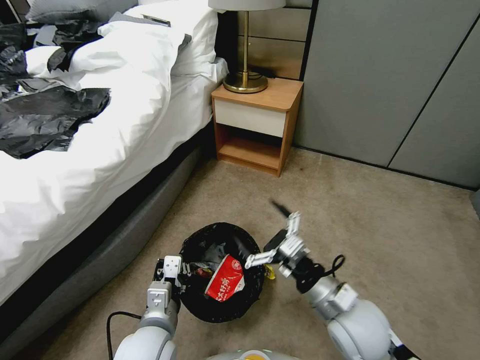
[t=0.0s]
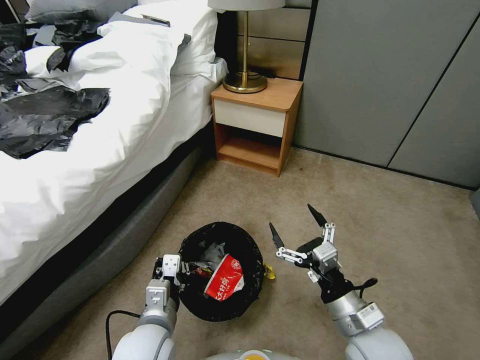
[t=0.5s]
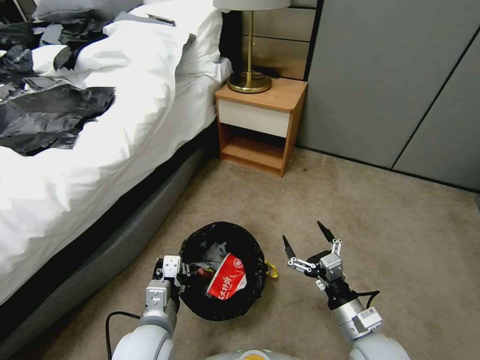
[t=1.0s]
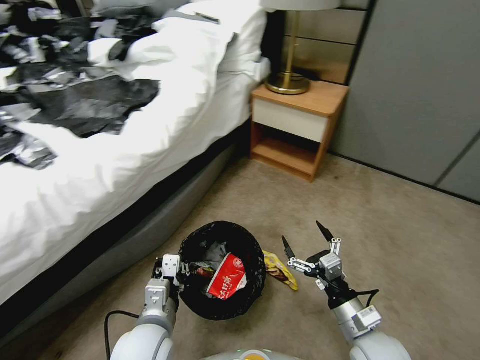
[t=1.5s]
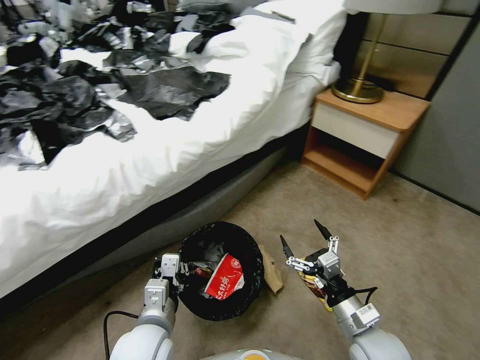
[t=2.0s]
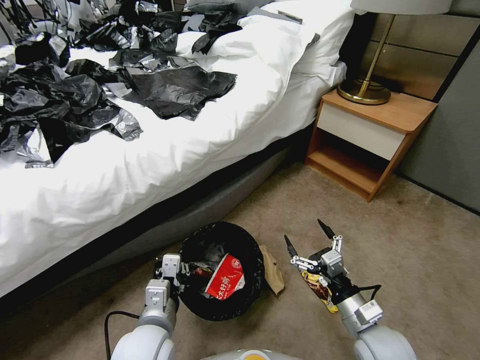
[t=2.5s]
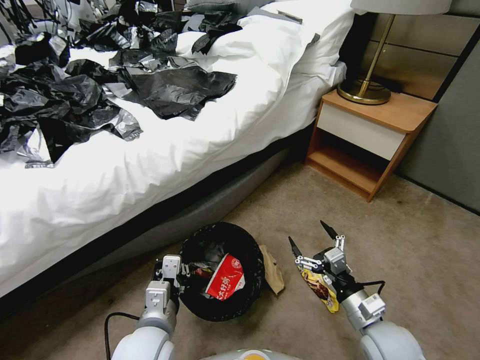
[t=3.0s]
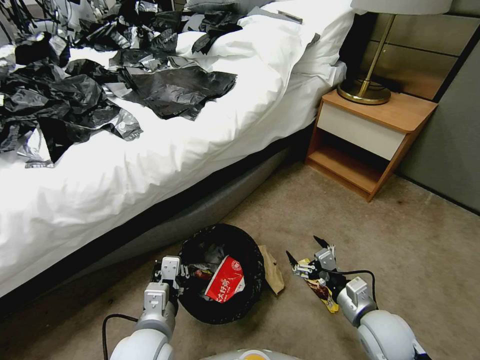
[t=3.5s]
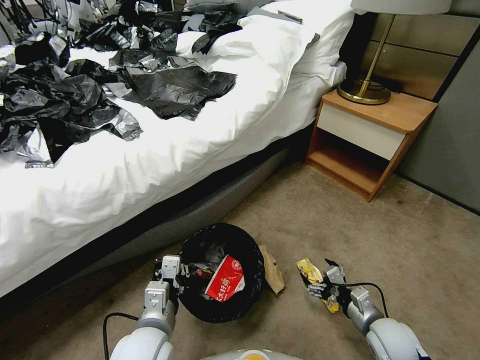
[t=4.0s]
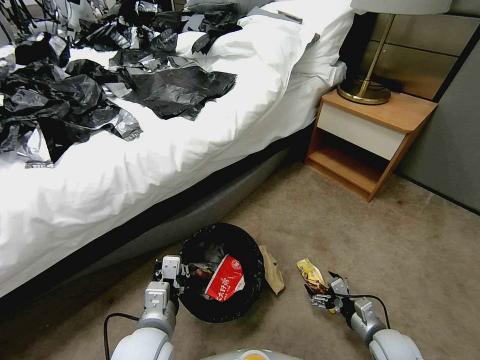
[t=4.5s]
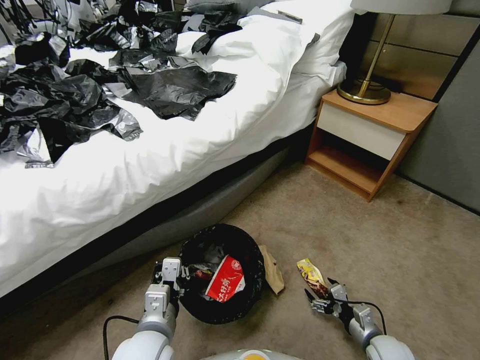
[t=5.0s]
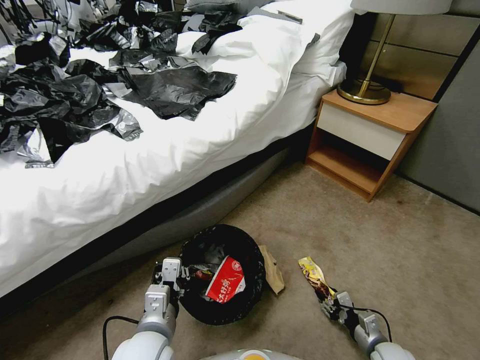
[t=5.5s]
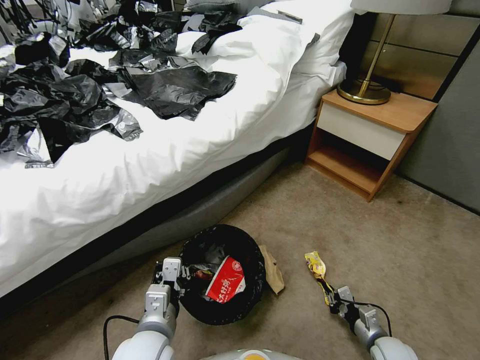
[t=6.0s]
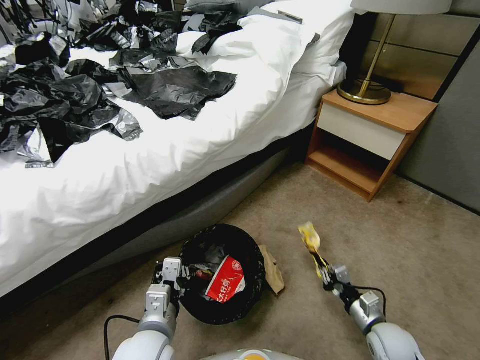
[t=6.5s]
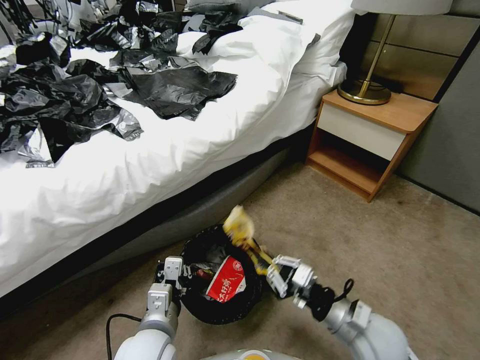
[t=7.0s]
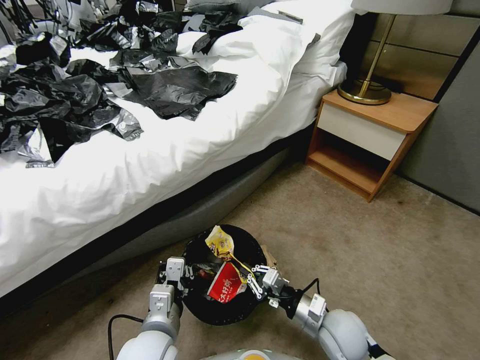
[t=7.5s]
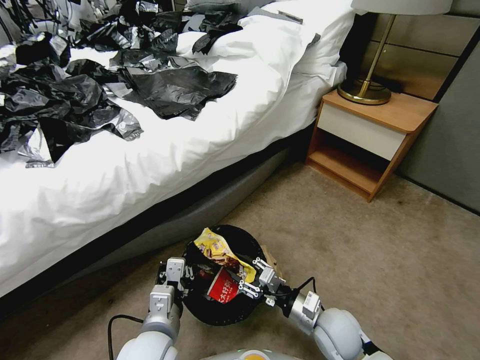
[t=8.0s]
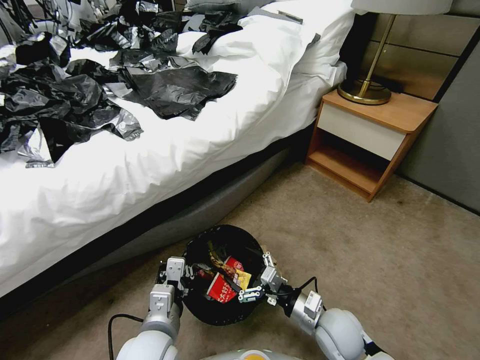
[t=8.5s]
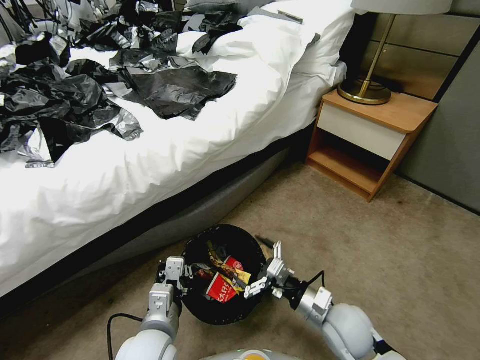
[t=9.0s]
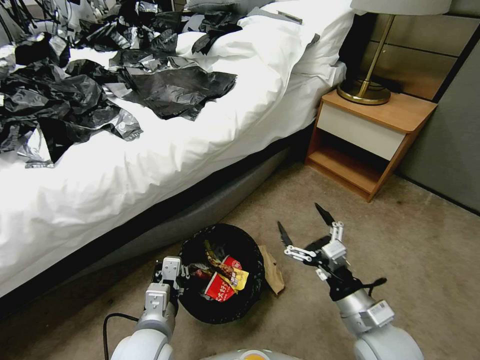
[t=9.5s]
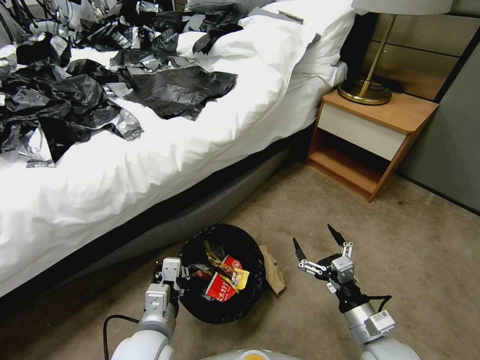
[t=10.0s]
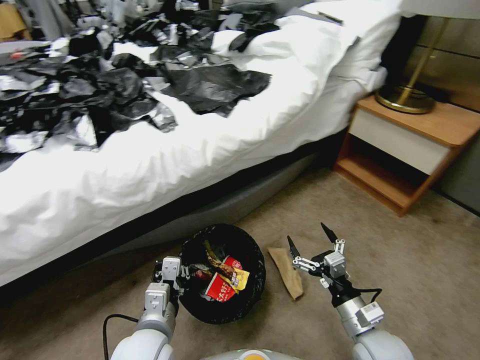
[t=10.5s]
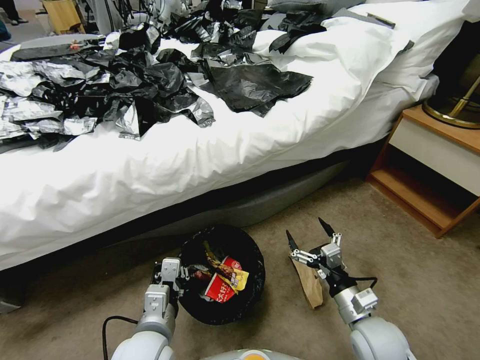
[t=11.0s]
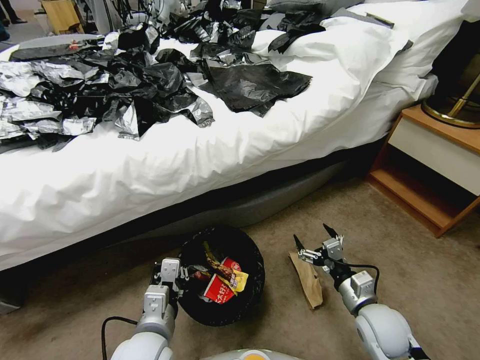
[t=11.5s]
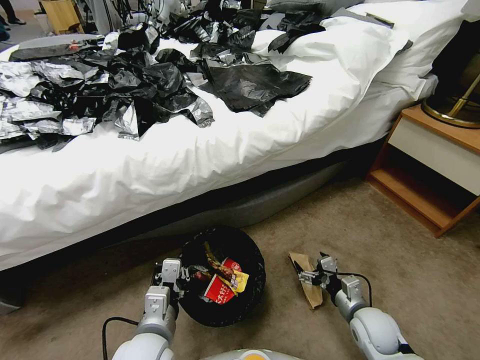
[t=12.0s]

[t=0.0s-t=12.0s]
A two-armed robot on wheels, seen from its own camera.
Task of the whole recording: Pick up the trash bin, then pick up the garbage from the floor and place it into the trash bin.
t=0.0s to t=2.0s: The right gripper is displaced downward and to the right by roughly 10 cm.
t=2.0s to t=4.0s: The right gripper travels to the right and downward by some 10 cm.
t=4.0s to t=6.0s: The right gripper shifts some 10 cm downward, and closes its fingers.
t=6.0s to t=8.0s: The right gripper goes about 20 cm to the left and upward, and opens.
t=8.0s to t=10.0s: The right gripper goes about 10 cm to the right and backward, and opens up.
t=10.0s to t=12.0s: The right gripper shifts some 10 cm downward and forward.

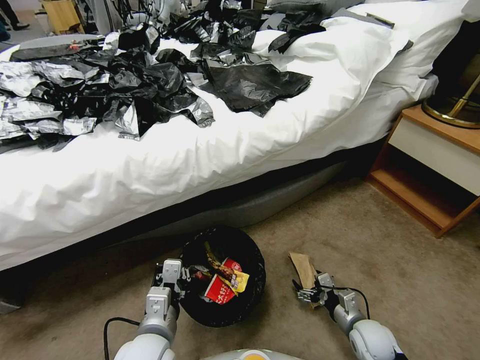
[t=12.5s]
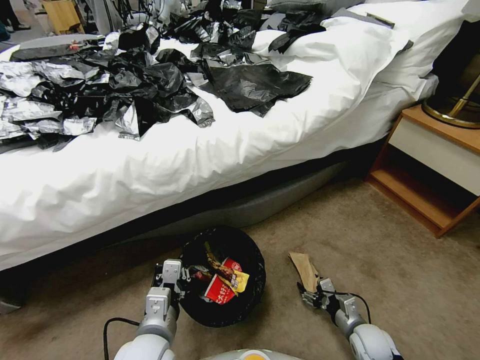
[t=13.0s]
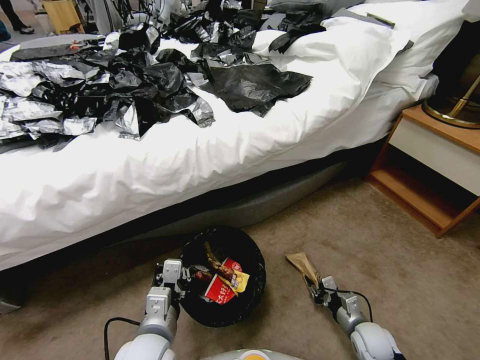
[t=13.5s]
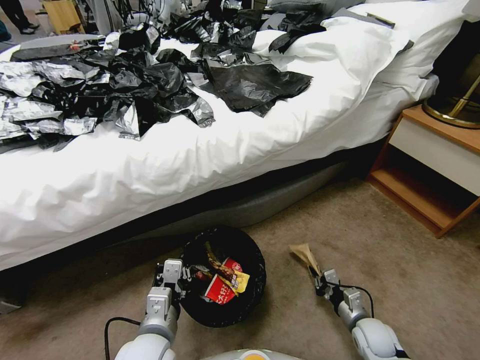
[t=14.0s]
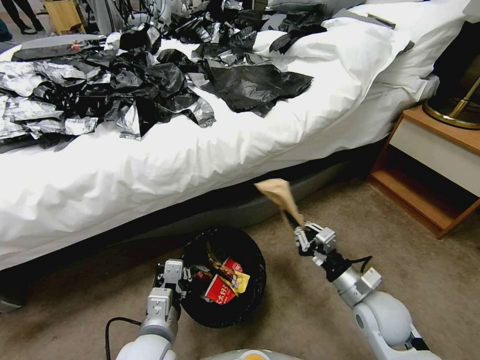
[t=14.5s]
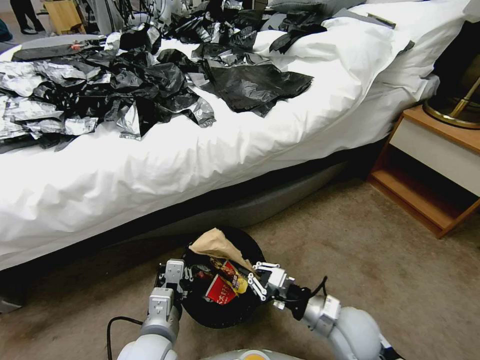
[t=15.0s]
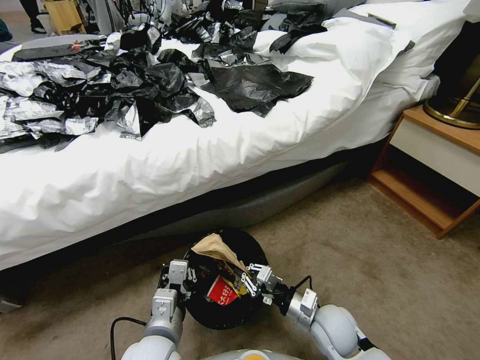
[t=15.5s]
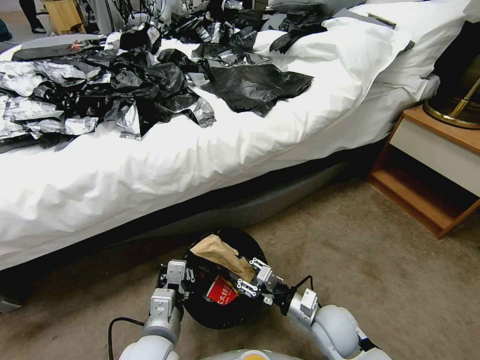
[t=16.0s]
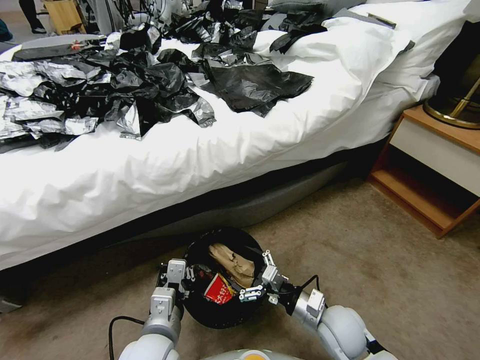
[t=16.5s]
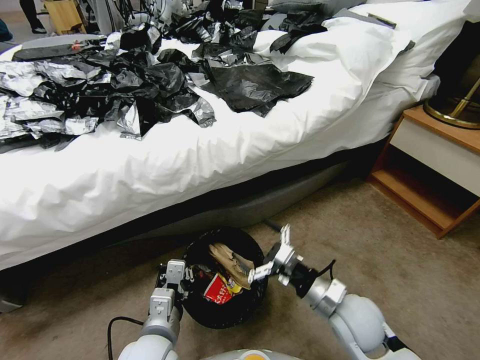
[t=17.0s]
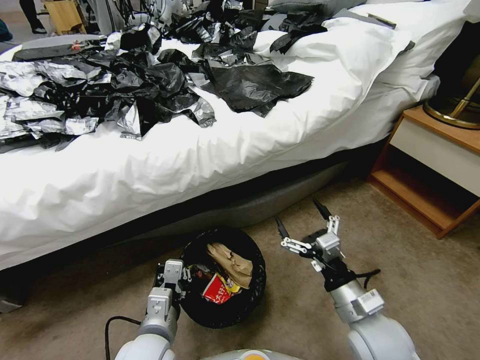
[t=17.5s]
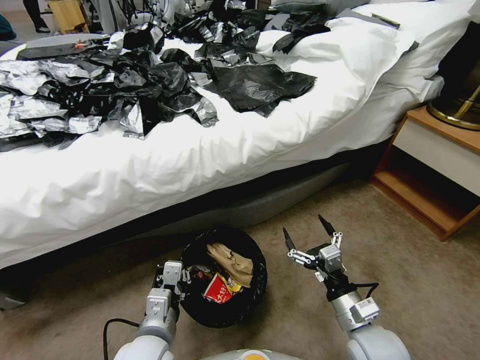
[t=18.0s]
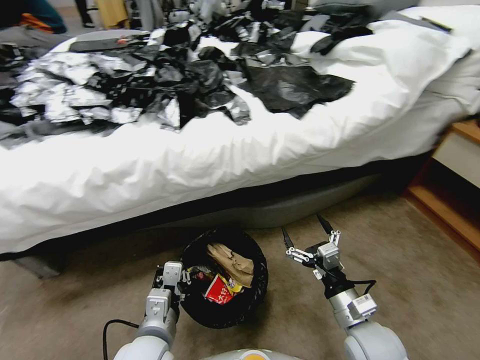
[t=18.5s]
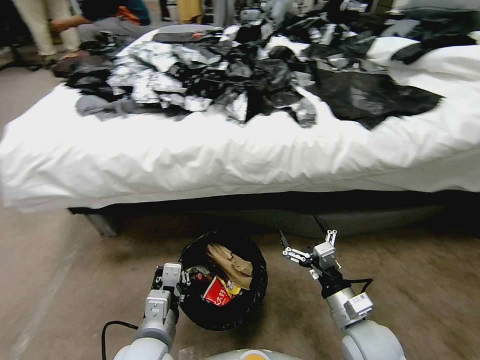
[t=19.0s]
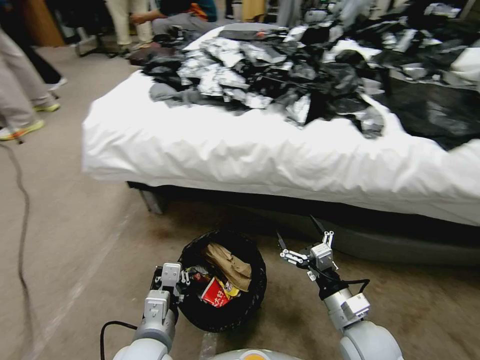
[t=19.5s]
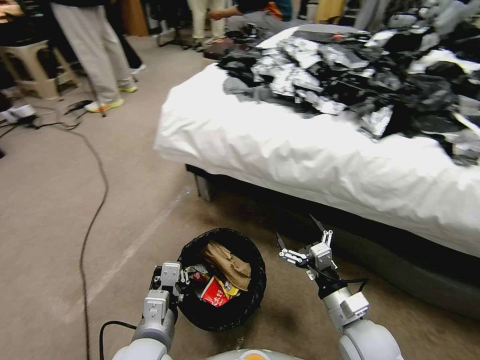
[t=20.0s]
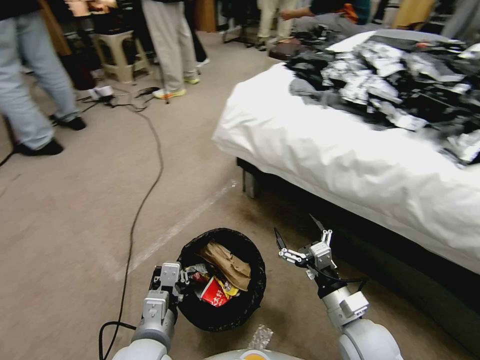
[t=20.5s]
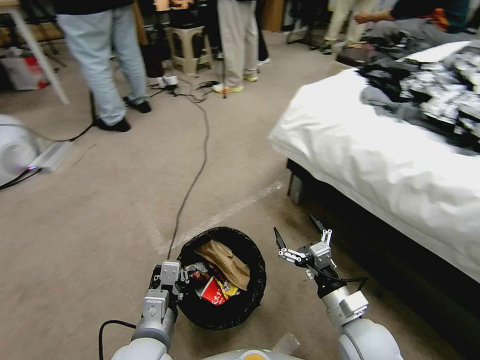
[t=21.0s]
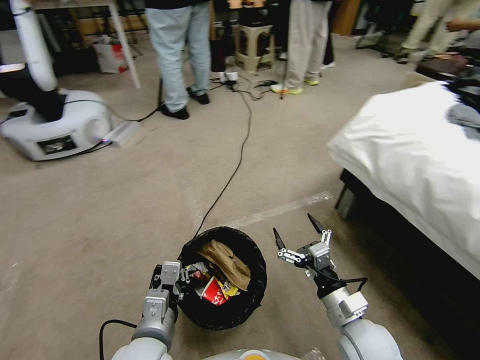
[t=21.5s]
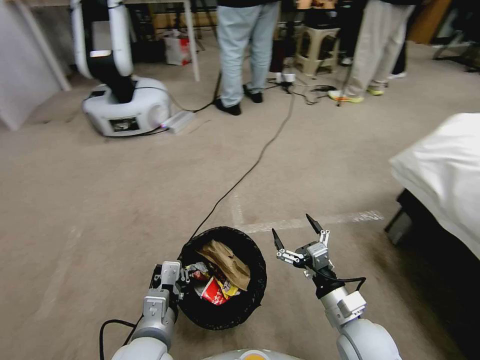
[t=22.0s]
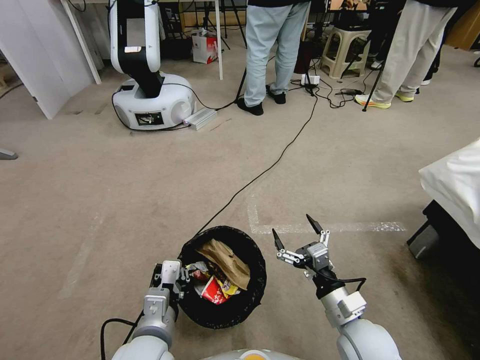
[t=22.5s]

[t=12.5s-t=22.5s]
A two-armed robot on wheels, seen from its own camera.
Task of the whole recording: Pick up the trash bin, then pick up the garbage from the floor and place it into the trash bin.
t=12.5s to t=14.5s: The right gripper heads upward, covering roughly 15 cm, and closes.
t=14.5s to t=16.5s: The right gripper is displaced to the left and downward by about 10 cm, and opens its fingers.
t=16.5s to t=18.5s: The right gripper moves upward, roughly 5 cm.

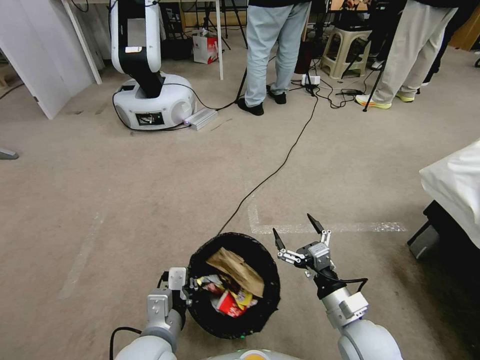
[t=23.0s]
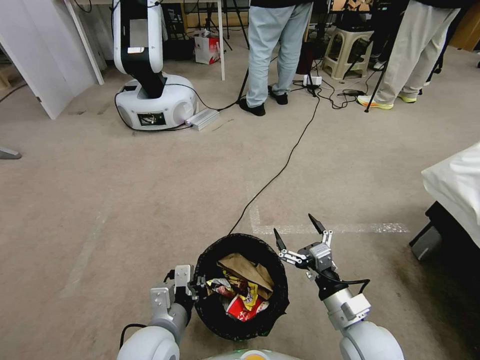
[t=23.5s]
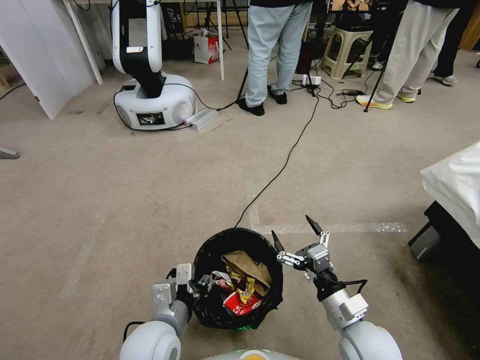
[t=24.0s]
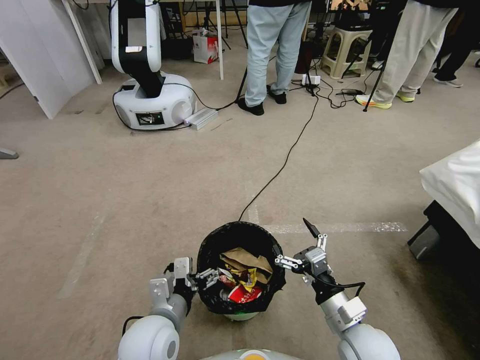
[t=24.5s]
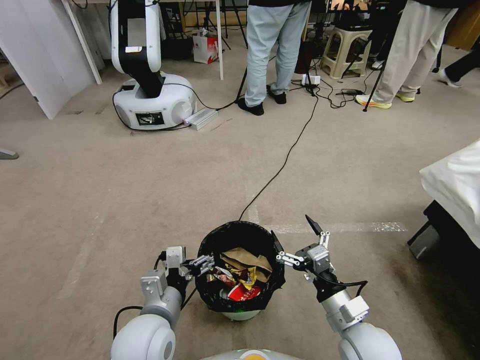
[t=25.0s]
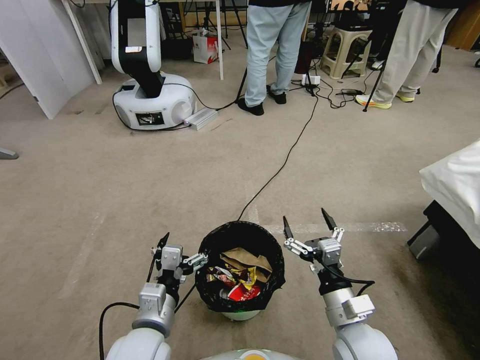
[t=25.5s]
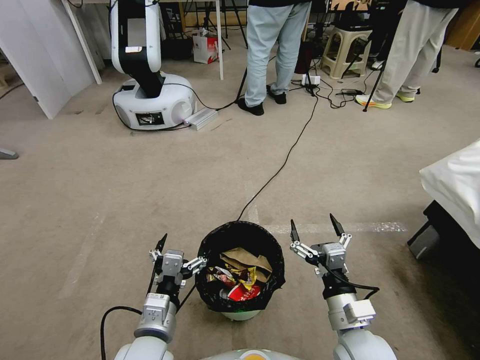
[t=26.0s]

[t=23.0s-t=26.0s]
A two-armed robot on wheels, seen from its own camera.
Task of the whole recording: Pick up the trash bin, then pick up the garbage from the floor and place it into the trash bin.
t=23.0s to t=24.5s: The left gripper opens up.
